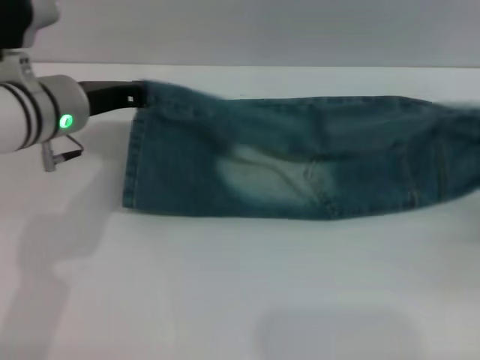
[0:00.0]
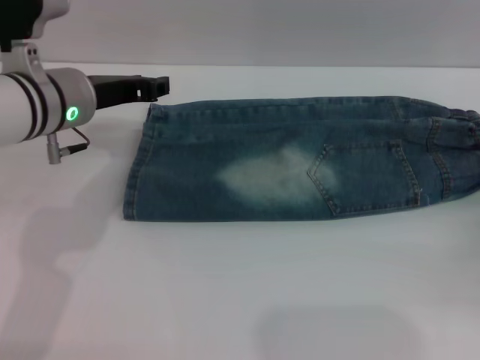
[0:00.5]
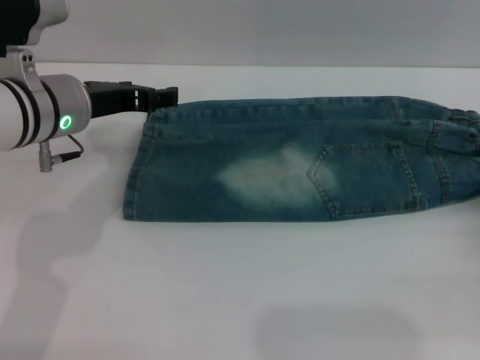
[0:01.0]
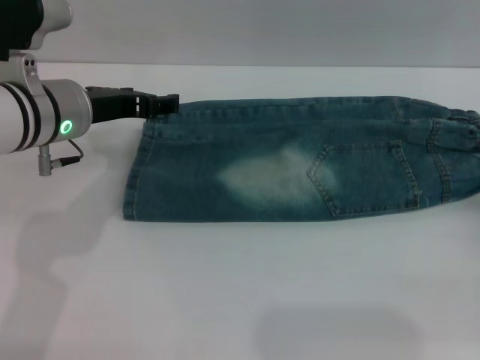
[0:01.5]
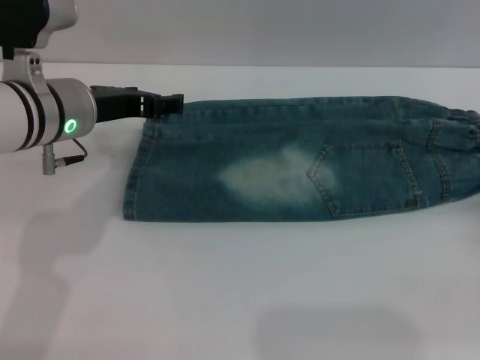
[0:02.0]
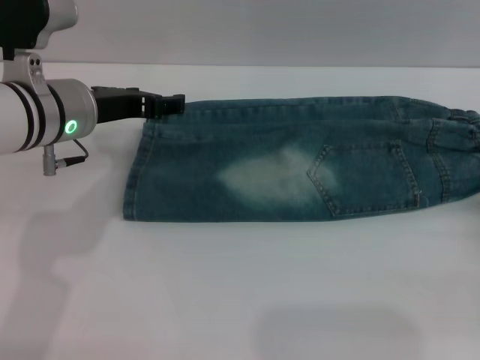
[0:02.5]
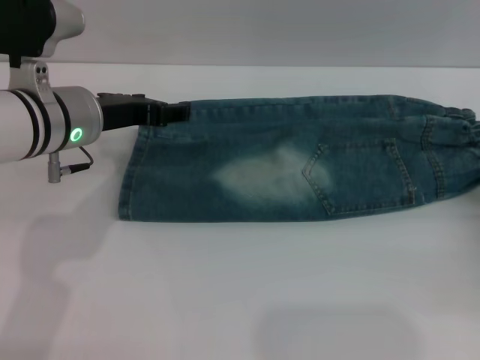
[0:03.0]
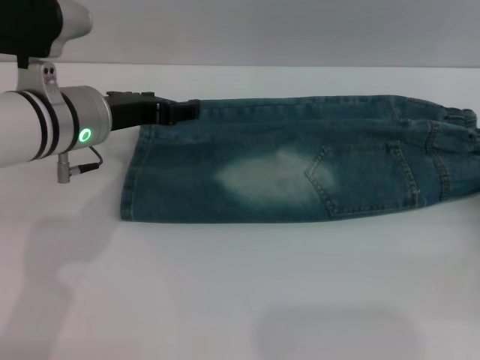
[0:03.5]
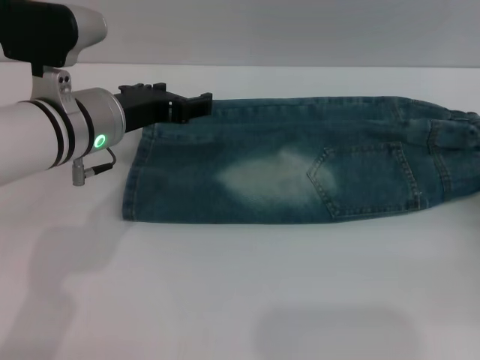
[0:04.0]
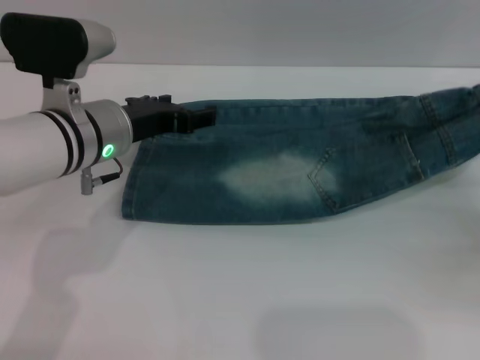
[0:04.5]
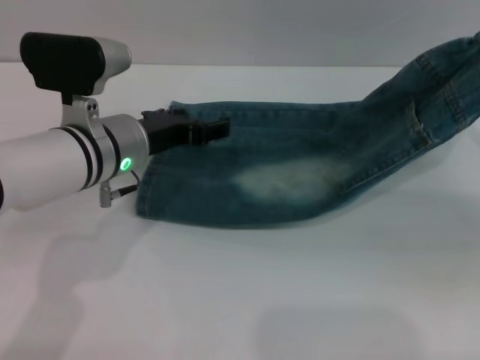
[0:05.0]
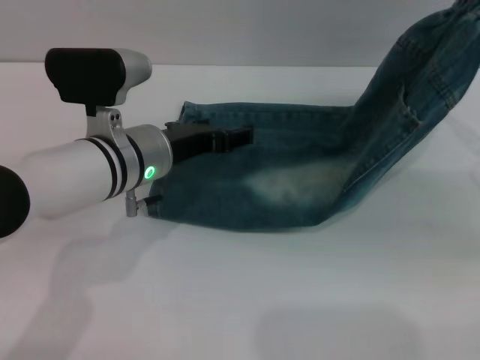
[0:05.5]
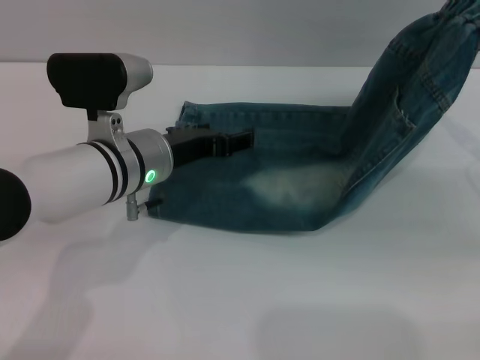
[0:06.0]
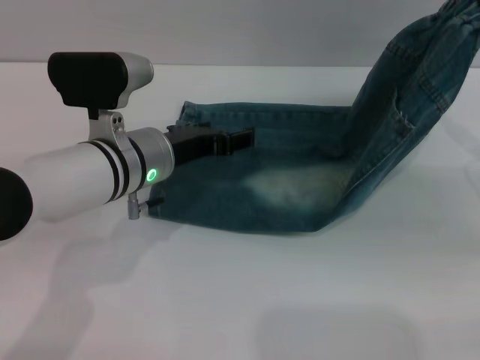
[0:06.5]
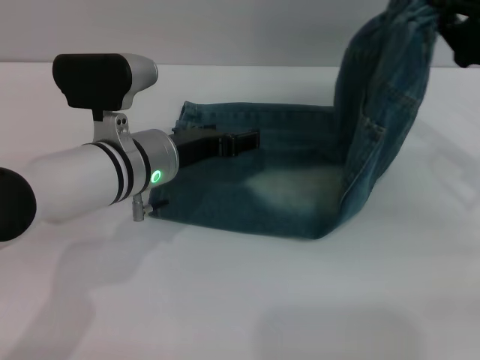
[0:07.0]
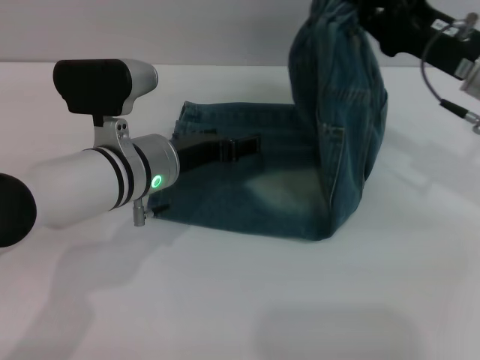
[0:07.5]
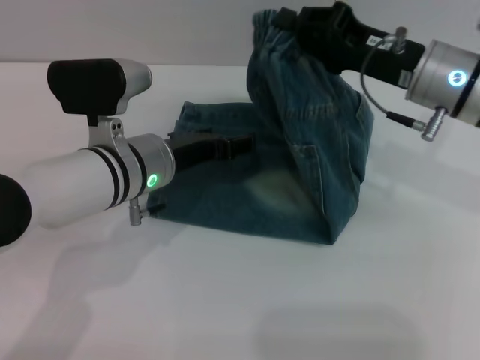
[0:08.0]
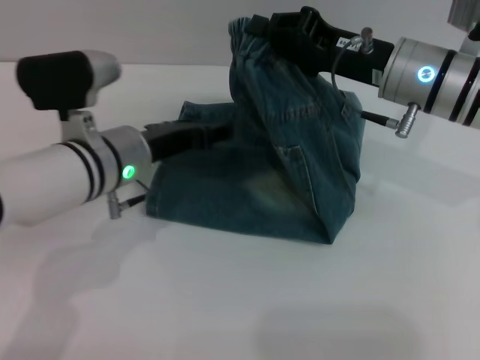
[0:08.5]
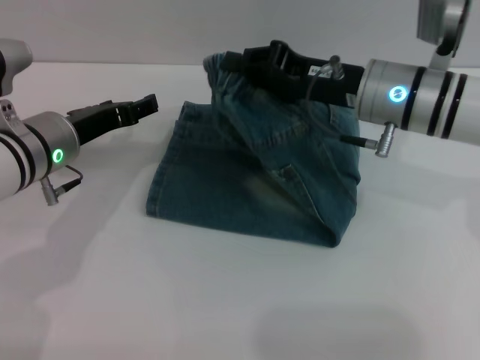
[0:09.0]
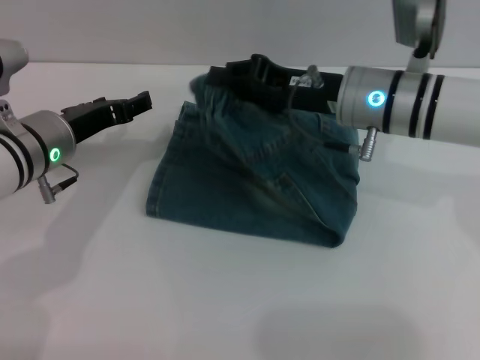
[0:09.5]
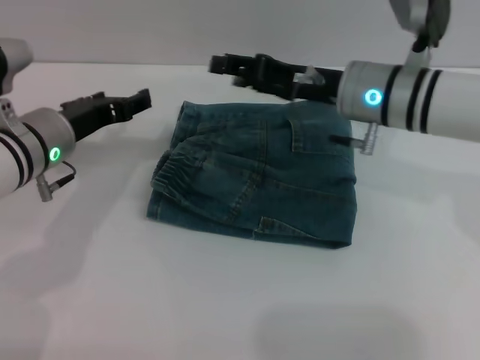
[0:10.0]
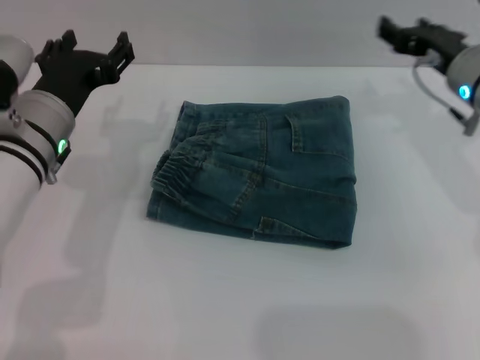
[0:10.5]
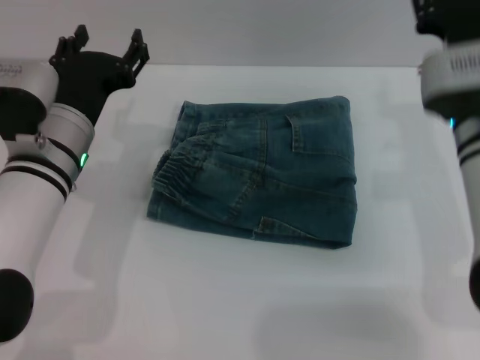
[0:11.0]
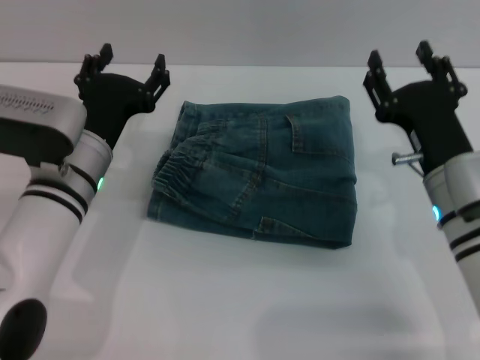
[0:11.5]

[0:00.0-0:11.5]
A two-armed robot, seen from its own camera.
Step, 0:01.0 to 0:10.0: Fold the pants from right to left with the right gripper.
0:00.0 to 0:02.0: The right gripper goes roughly 5 cm backward, and opens, while the left gripper opens up.
0:02.0 to 0:04.0: The right gripper closes.
0:04.0 to 0:06.0: The left gripper moves some 5 cm; the right gripper shifts roughly 10 cm upward and forward.
0:06.0 to 0:07.5: The right gripper moves to the left and forward, about 10 cm.
0:07.5 to 0:09.5: Both grippers travel together to the left, about 10 cm.
0:09.5 to 0:11.5: The left gripper moves some 5 cm. The right gripper shifts roughly 15 cm backward, downward and to the right, and opens.

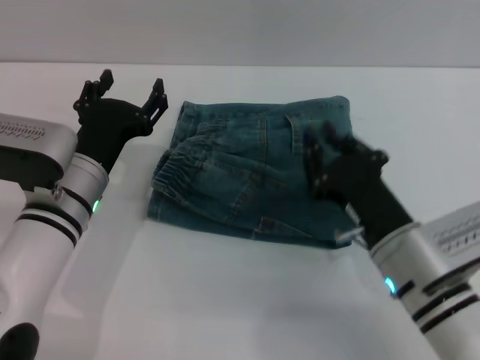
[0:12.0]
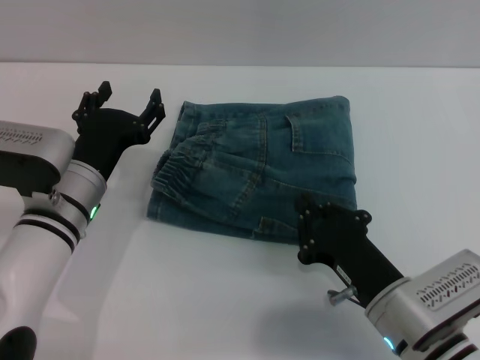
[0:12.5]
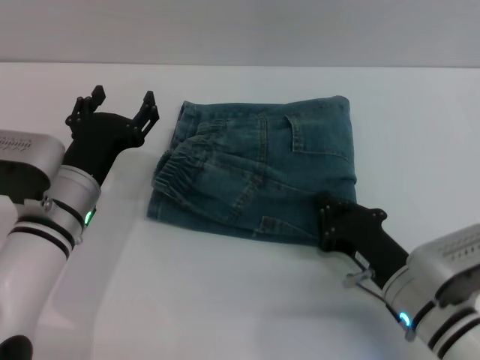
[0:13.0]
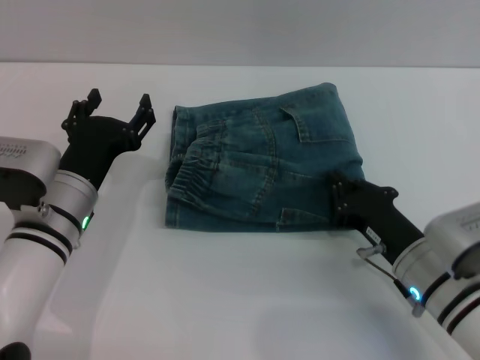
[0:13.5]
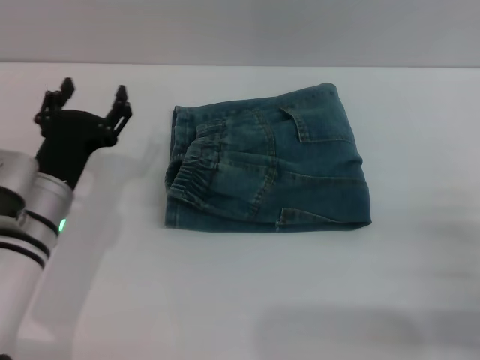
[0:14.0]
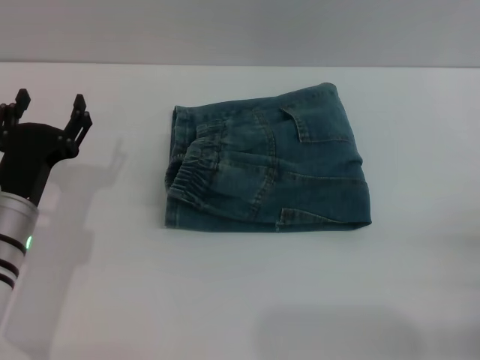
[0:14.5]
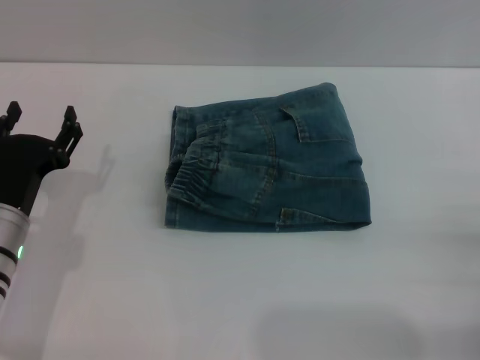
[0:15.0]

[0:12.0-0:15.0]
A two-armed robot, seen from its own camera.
0:12.0 to 0:13.5: The right gripper changes place by roughly 5 cm, and closes up.
0:13.5 to 0:15.0: The left gripper moves to the left, some 5 cm. Meanwhile the right gripper shifts about 15 cm to the right and backward, and opens.
